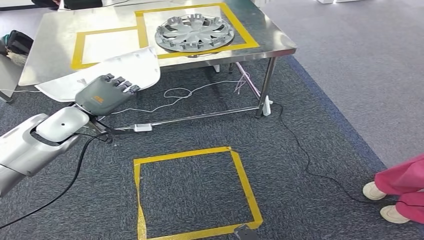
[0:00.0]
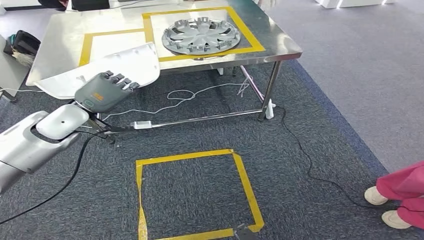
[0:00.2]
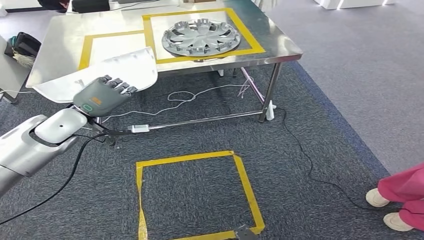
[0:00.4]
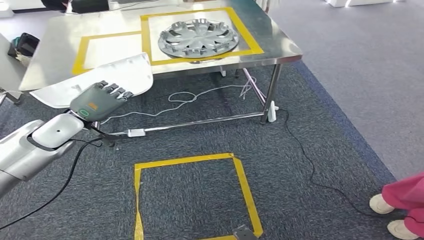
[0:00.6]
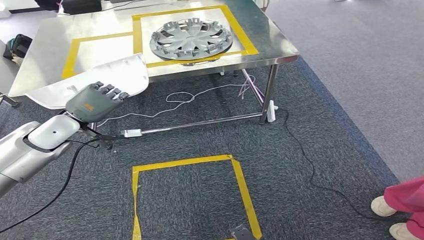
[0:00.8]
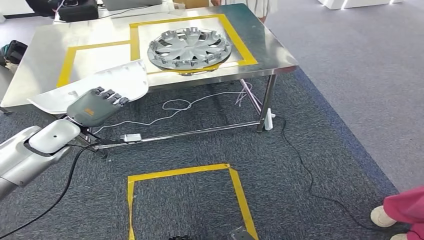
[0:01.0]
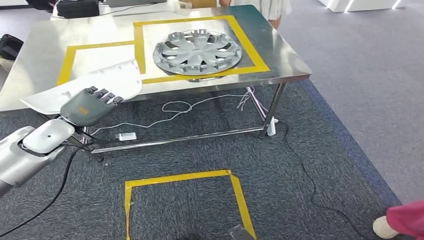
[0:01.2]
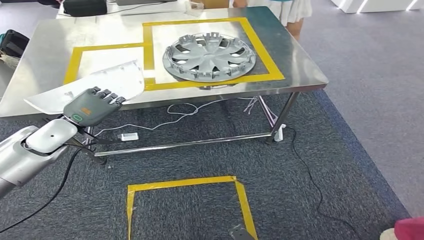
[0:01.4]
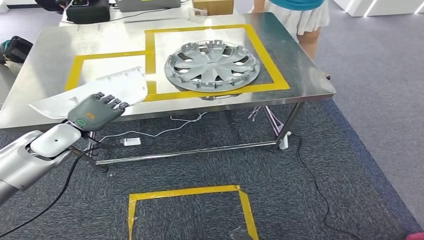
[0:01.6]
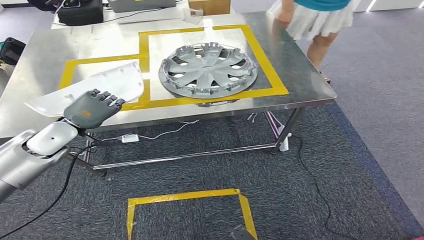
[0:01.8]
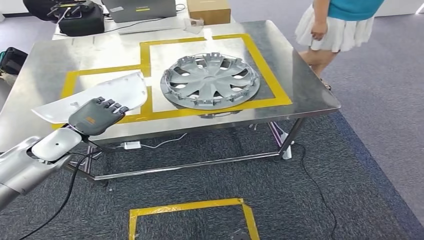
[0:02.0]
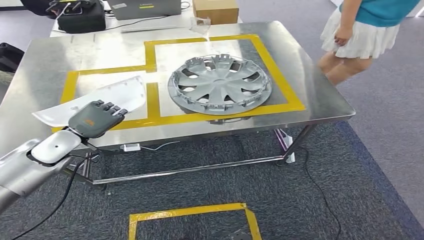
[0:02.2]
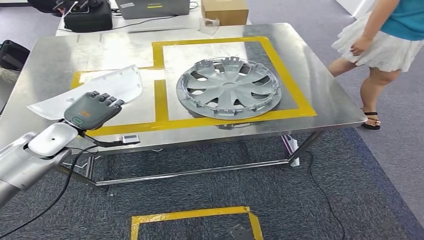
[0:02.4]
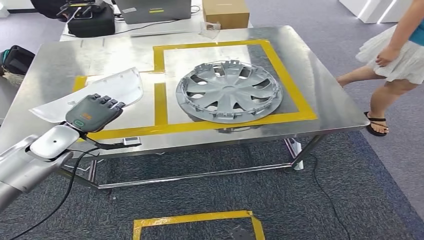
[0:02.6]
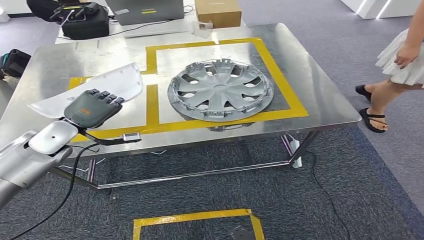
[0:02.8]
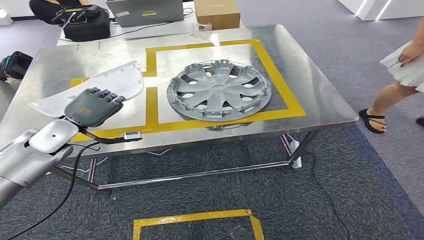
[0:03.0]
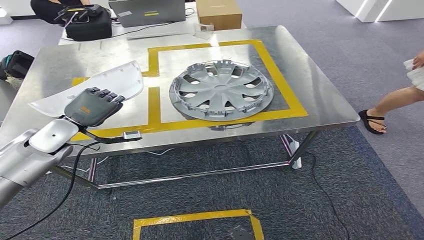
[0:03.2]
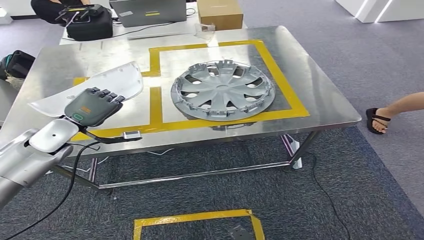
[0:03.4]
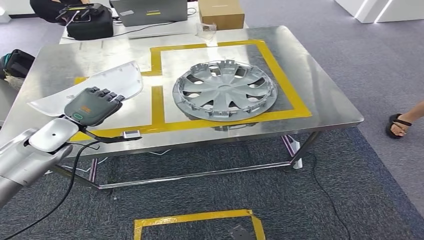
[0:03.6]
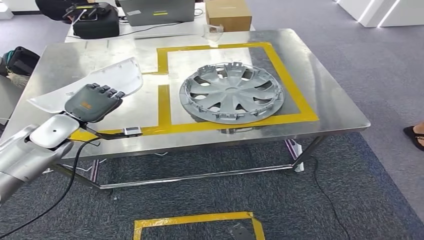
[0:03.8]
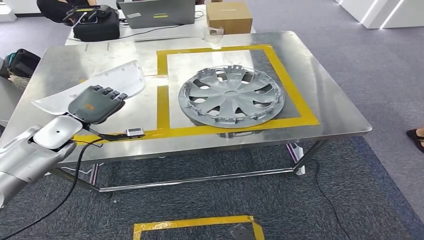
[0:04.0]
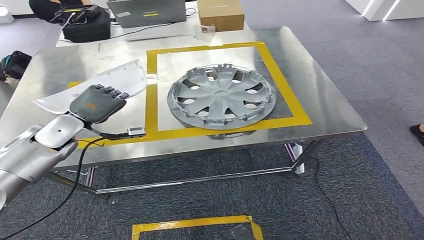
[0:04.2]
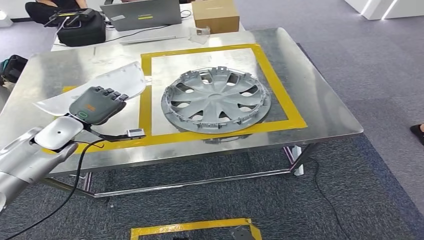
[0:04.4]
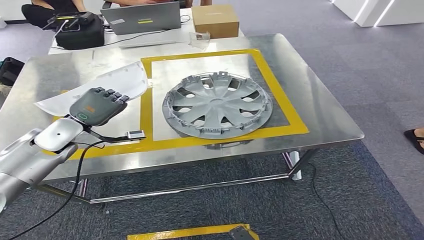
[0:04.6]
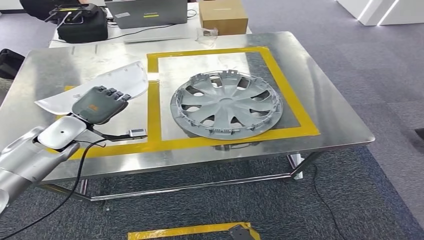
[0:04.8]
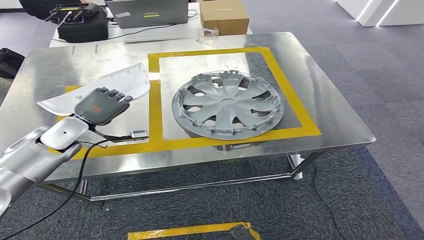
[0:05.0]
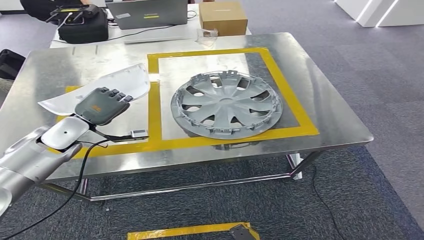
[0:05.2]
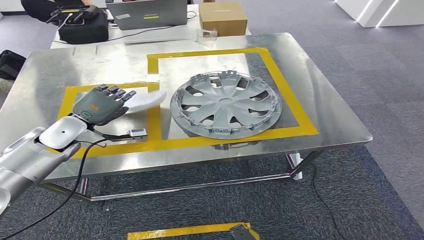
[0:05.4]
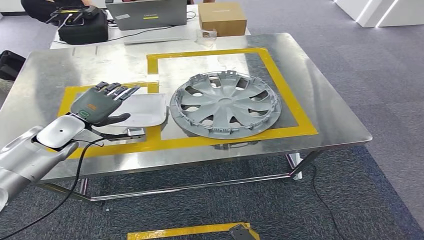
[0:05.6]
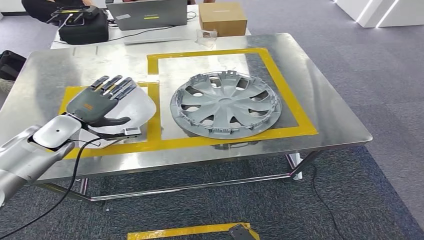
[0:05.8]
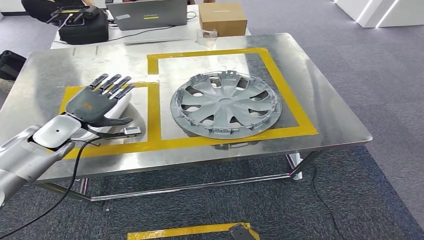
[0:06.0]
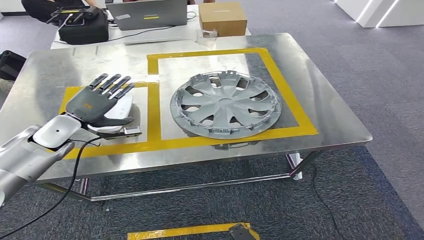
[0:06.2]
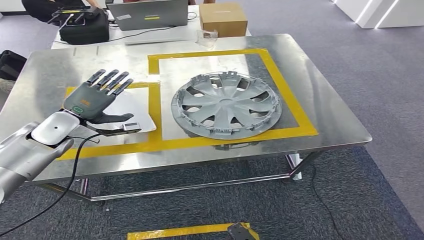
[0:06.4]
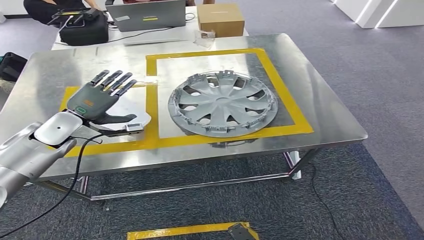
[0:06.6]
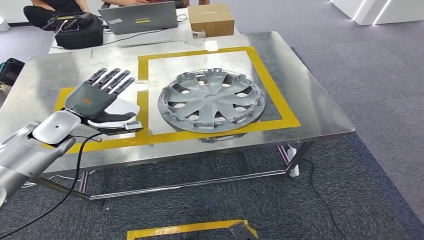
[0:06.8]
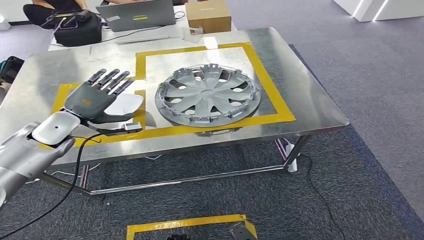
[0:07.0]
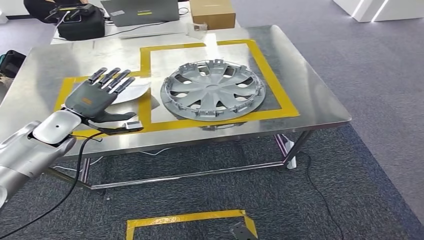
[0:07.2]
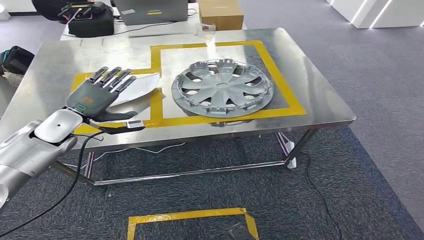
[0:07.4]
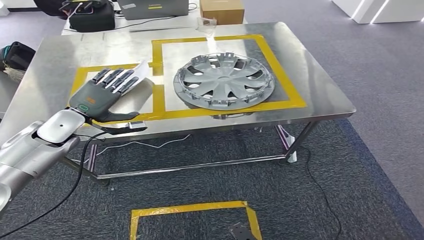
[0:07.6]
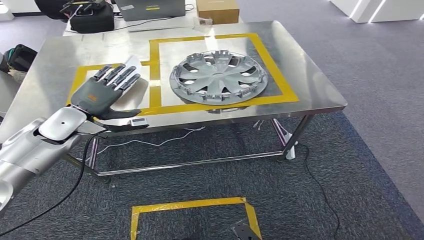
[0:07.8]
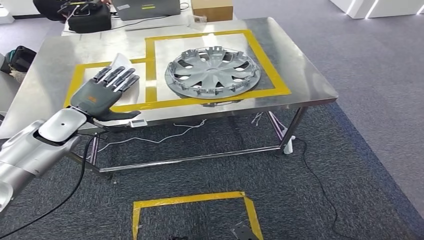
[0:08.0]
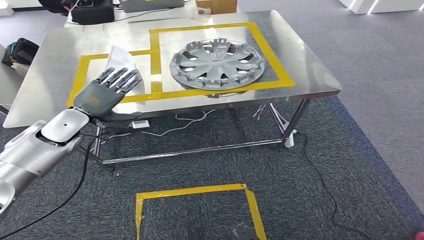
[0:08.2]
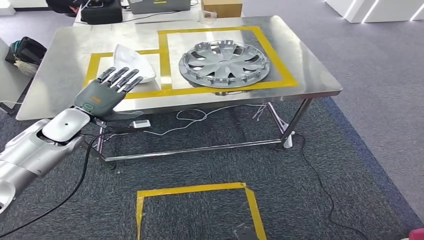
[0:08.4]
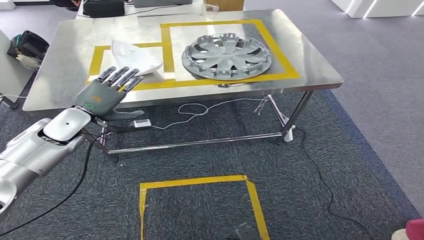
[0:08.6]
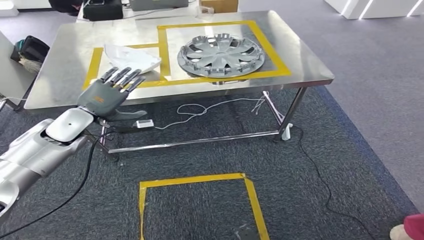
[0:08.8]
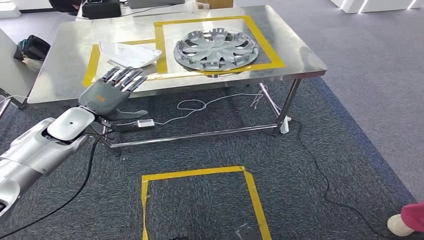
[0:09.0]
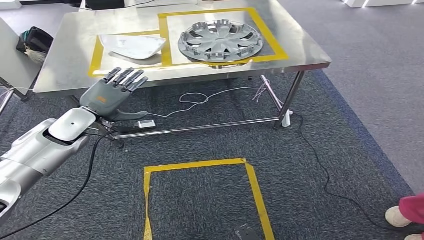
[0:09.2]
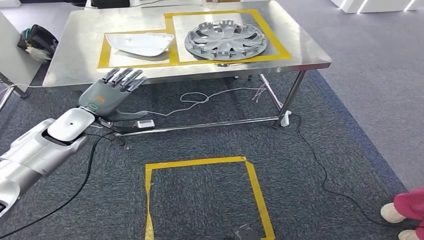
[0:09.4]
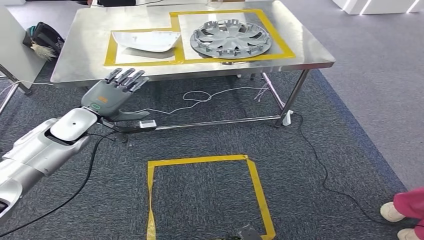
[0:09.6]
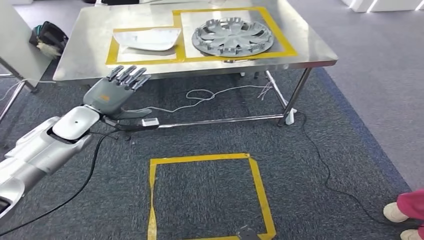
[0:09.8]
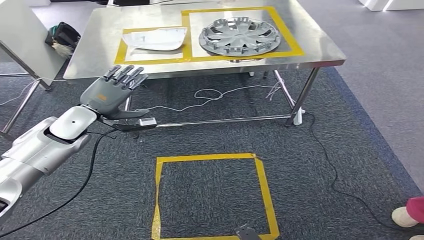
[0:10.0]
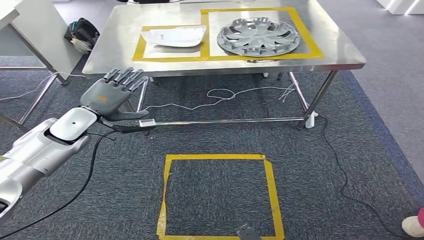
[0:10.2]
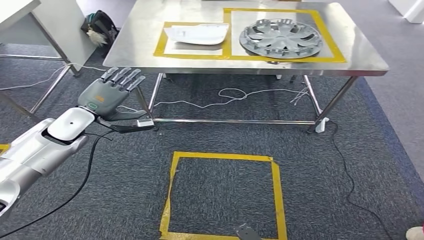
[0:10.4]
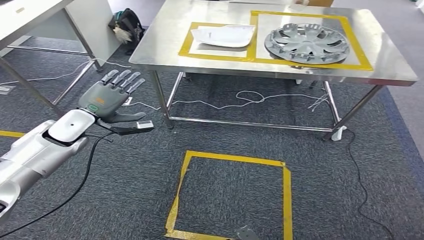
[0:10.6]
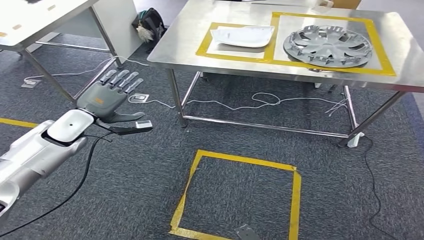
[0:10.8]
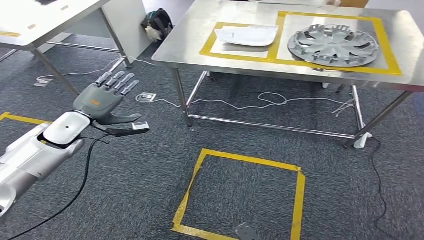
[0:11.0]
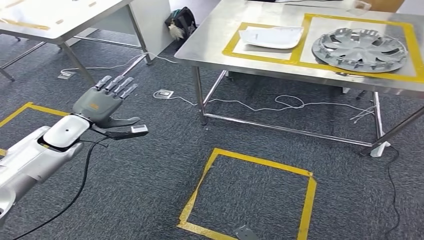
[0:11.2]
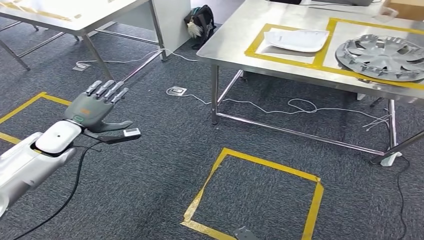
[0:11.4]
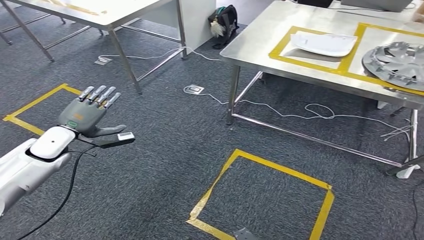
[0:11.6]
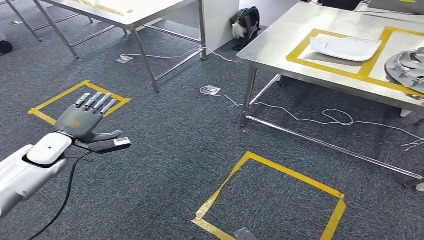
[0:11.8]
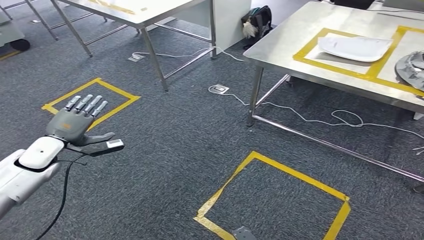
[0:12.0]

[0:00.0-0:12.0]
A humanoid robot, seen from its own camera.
Step, 0:00.0 to 0:07.6: Insert the small parts into the corresponding holes on the workbench.

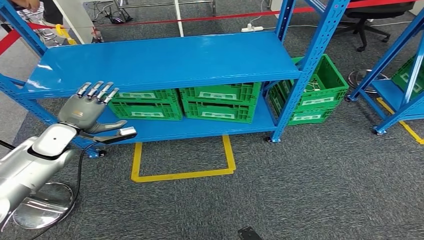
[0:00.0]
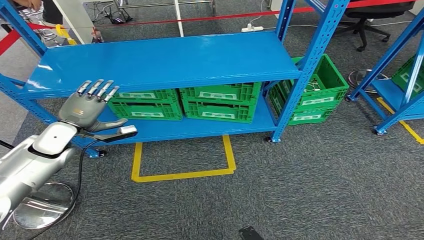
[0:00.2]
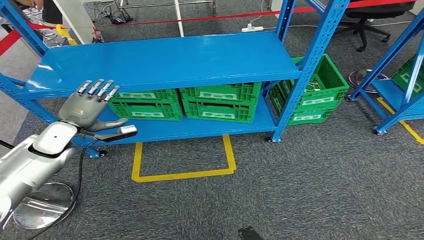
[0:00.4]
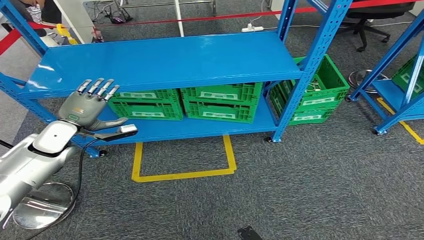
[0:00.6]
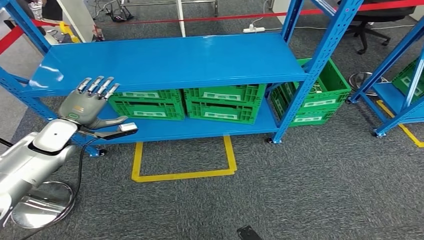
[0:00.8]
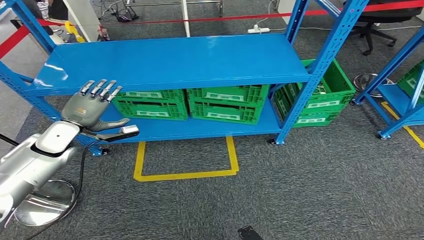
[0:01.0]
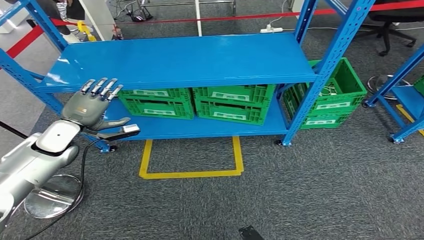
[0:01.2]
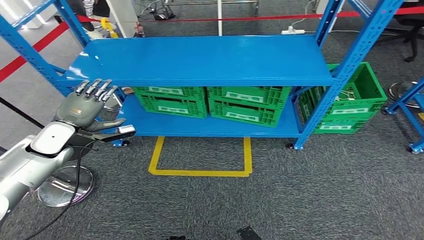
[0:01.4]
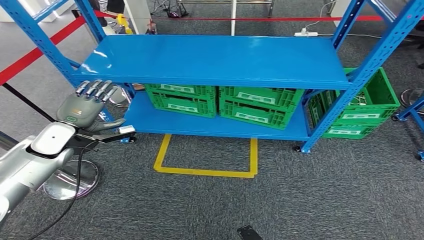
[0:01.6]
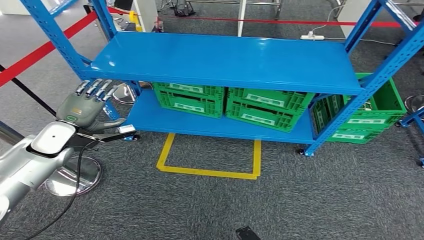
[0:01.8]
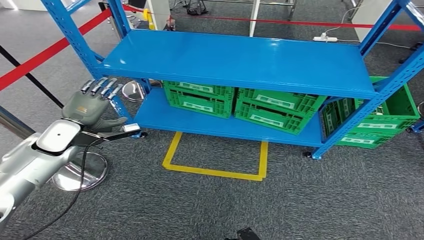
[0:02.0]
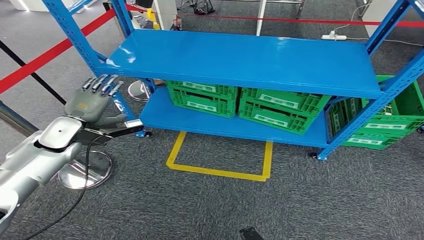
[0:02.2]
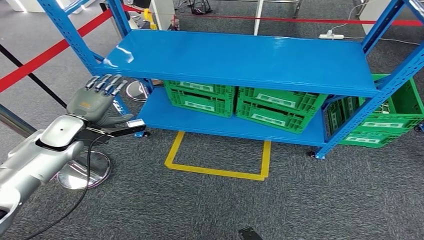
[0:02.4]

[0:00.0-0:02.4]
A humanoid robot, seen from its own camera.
Step, 0:00.0 to 0:02.4: Move to the initial position of the workbench.

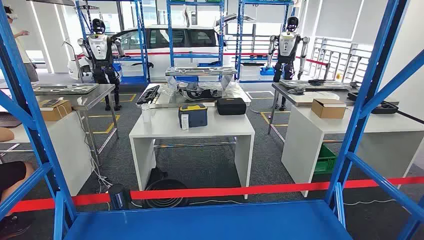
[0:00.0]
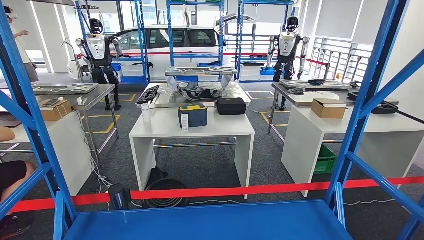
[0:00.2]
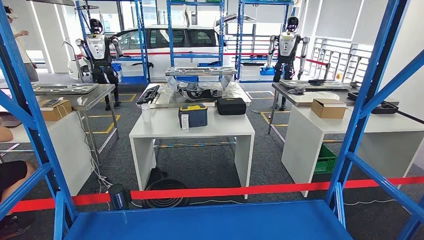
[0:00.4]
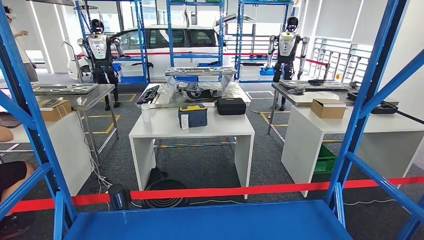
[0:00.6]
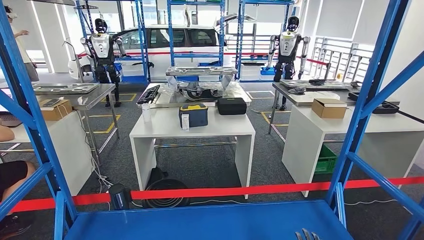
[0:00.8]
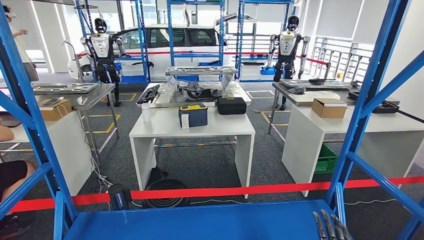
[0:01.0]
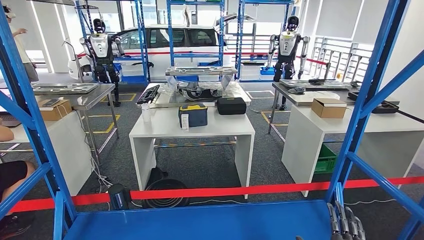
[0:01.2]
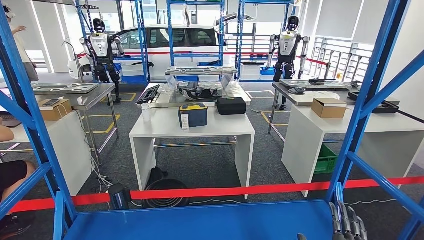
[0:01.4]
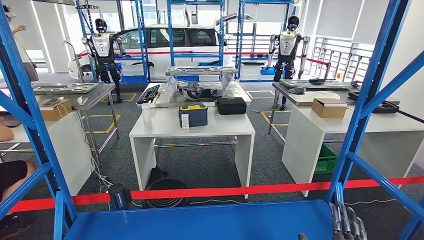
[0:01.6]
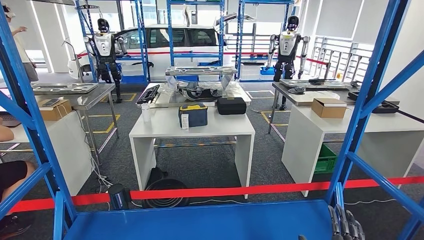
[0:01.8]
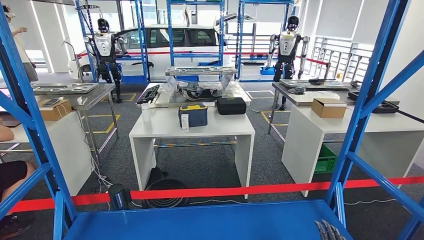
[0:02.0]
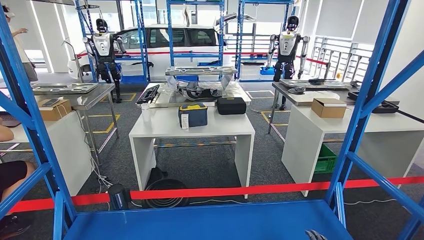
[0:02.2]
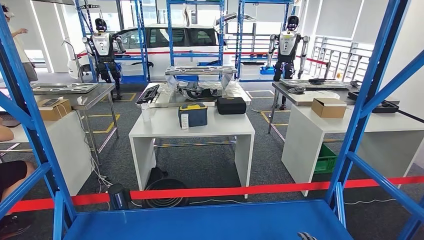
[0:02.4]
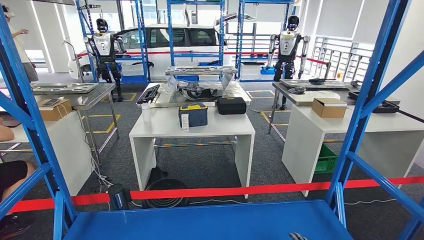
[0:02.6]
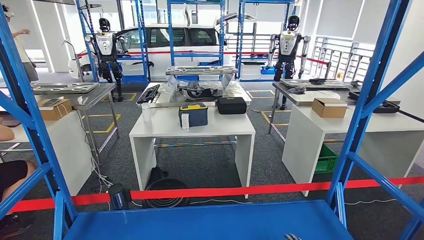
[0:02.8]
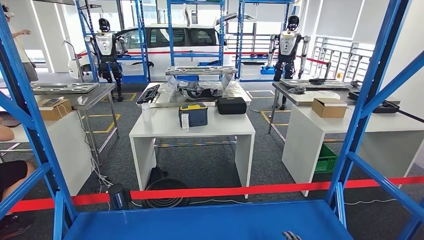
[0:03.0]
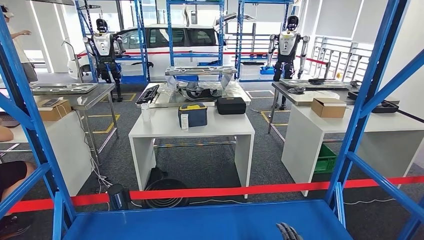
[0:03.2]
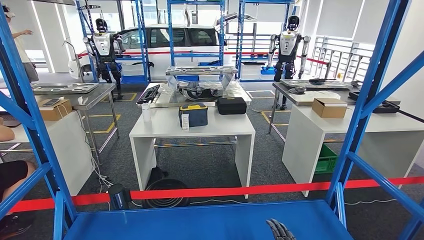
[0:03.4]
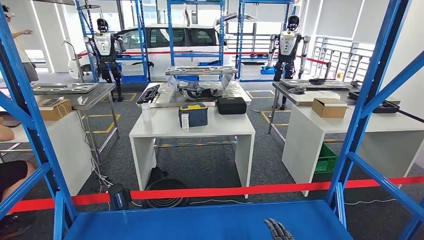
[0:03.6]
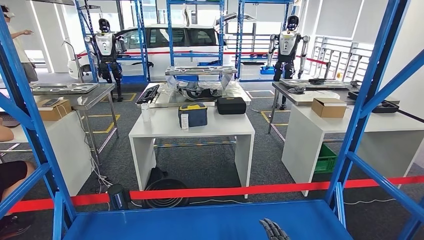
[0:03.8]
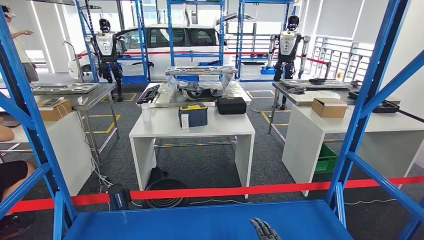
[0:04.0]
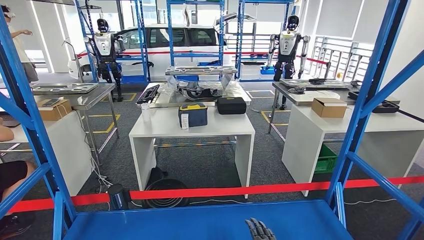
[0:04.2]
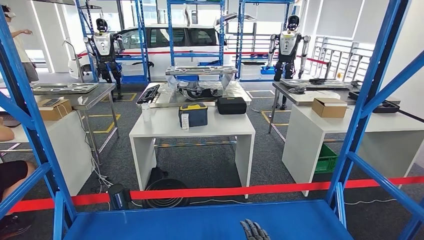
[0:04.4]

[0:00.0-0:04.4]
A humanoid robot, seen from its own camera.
0:01.4 to 0:03.0: The right hand moves about 5 cm.
